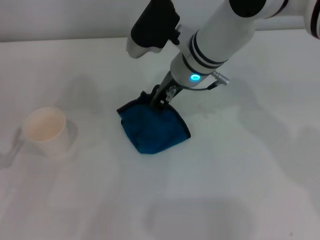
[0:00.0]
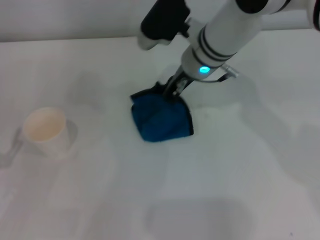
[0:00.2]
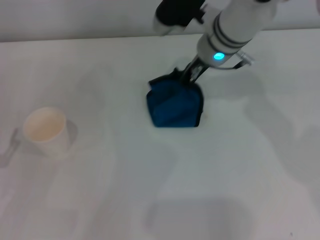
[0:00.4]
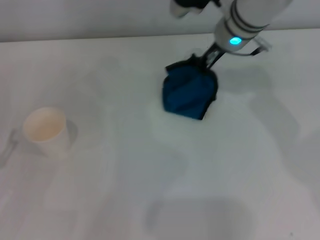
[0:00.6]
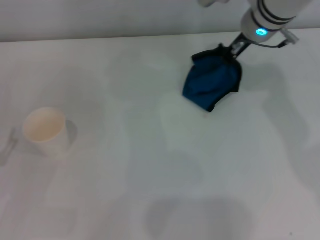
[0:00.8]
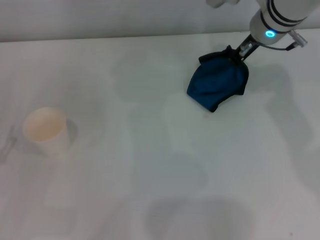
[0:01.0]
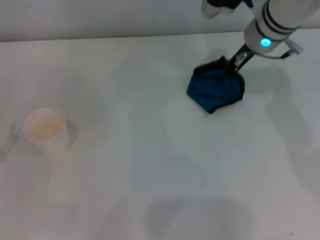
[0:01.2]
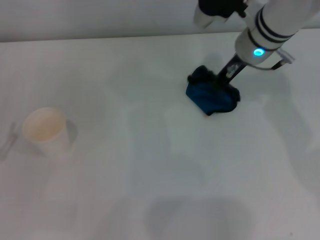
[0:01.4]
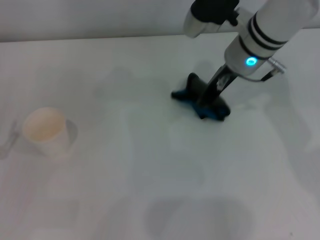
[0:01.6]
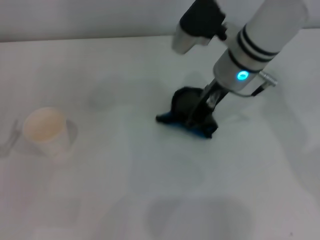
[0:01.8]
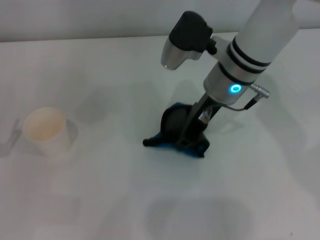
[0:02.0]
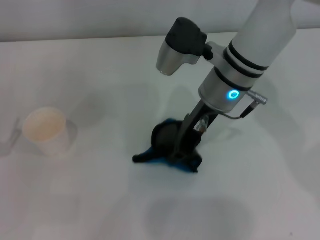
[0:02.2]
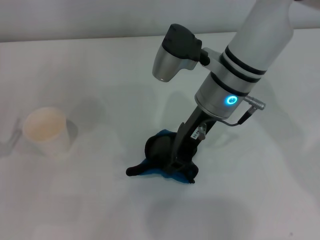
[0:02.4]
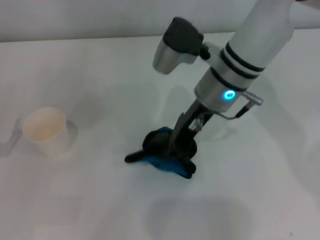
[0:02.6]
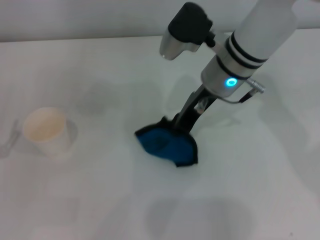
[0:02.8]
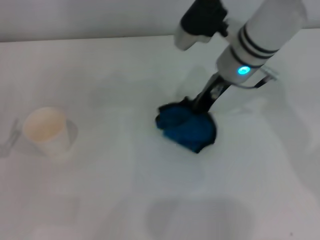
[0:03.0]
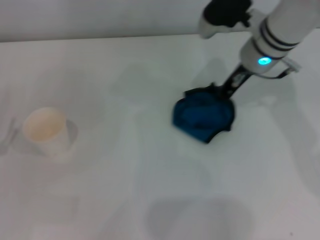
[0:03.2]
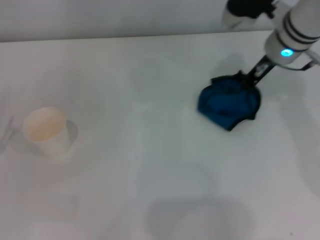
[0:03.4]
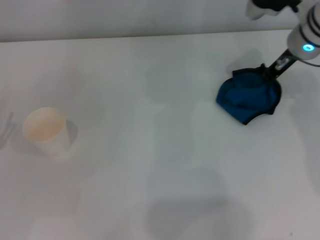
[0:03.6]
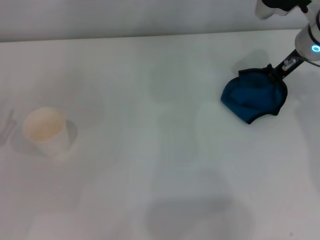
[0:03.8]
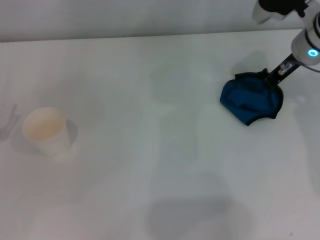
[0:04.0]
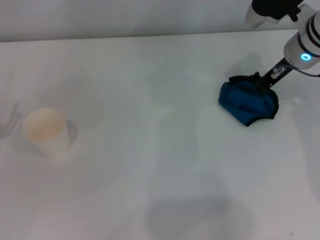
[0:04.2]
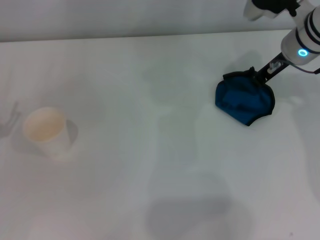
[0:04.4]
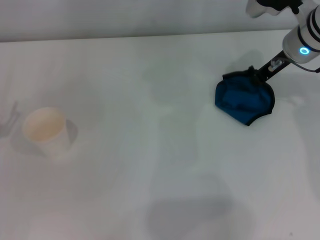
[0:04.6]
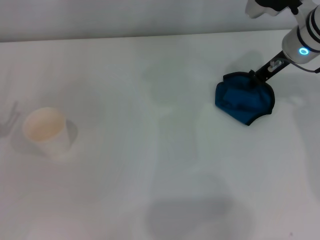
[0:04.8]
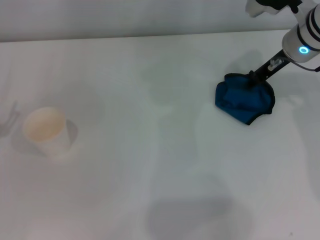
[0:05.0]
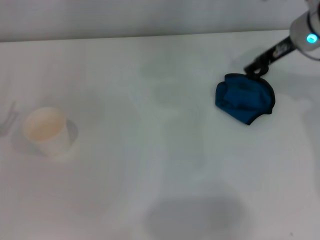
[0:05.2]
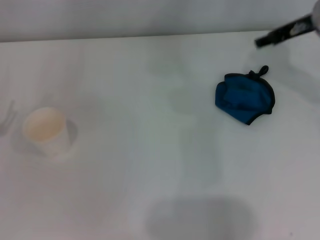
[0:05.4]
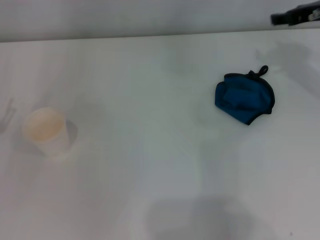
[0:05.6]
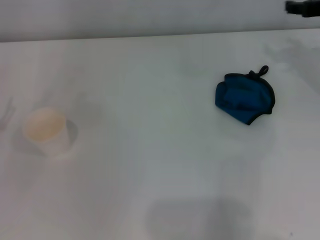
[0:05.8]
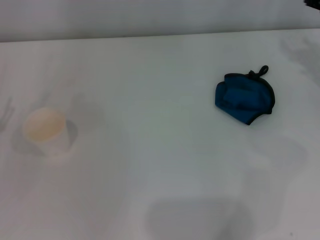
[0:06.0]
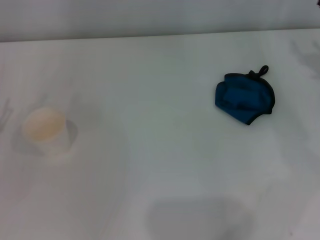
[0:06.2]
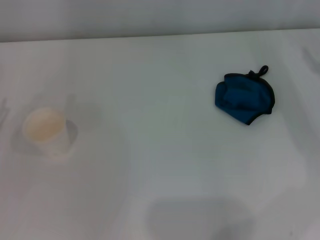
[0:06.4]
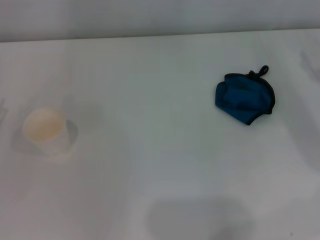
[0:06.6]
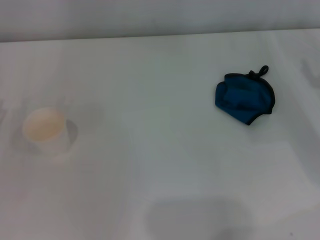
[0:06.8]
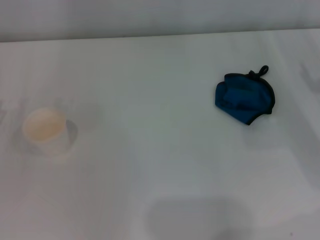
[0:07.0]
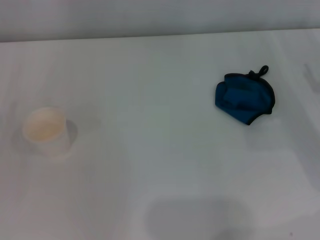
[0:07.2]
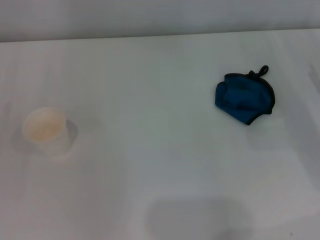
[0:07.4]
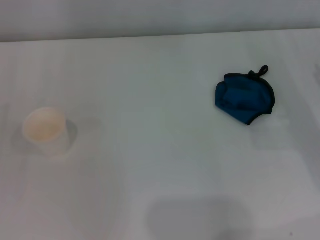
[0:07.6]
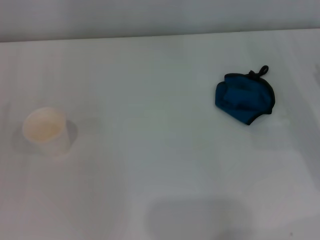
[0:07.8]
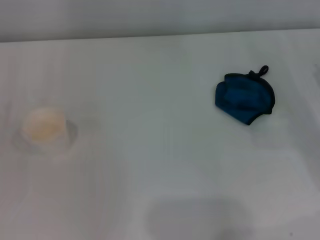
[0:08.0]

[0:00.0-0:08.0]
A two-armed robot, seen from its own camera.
Step, 0.0 to 3.2 s: Wipe the stains off the table with the right gripper.
Step, 3.4 to 5.0 s: Place the rag on the table with the right gripper.
0.0 to 1.6 s: The right gripper heads to the right, covering about 10 cm.
1.6 to 3.2 s: The right gripper travels to the left and back again, some 5 cm each way.
3.2 to 4.8 s: The right gripper moves to the right, some 5 cm.
4.8 to 6.4 s: The right gripper shifts about 20 cm to the right and backward, and opens.

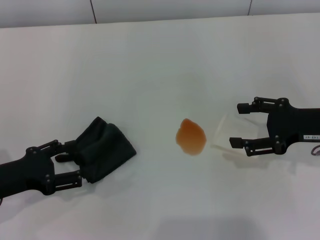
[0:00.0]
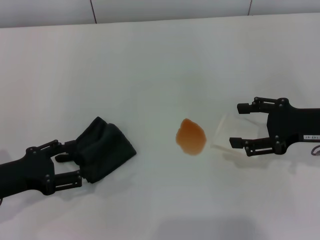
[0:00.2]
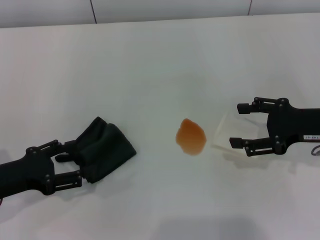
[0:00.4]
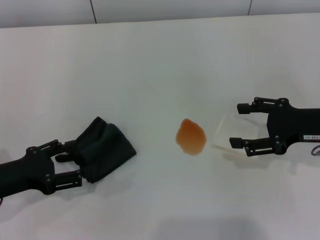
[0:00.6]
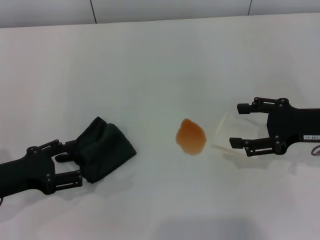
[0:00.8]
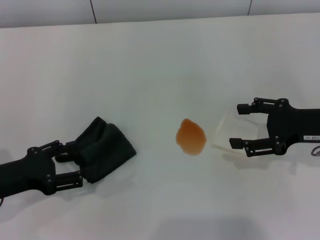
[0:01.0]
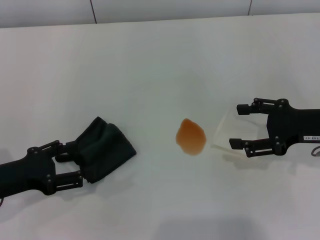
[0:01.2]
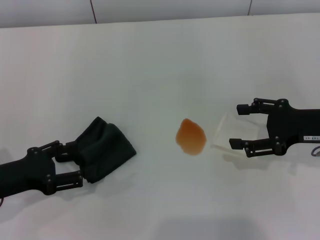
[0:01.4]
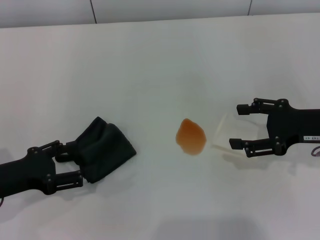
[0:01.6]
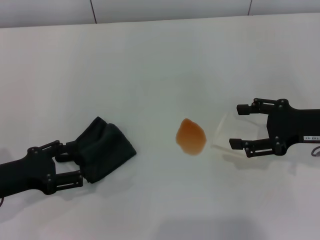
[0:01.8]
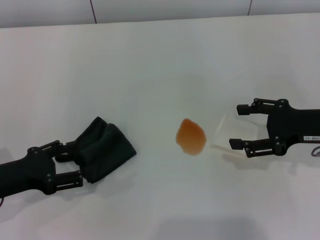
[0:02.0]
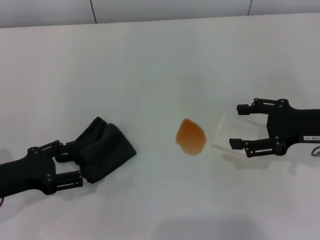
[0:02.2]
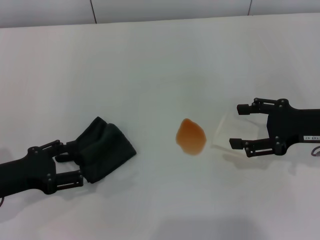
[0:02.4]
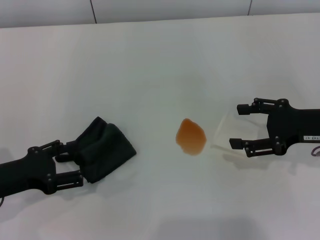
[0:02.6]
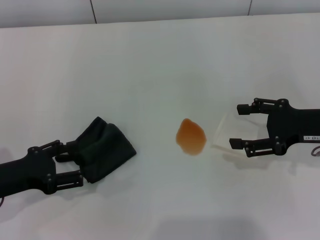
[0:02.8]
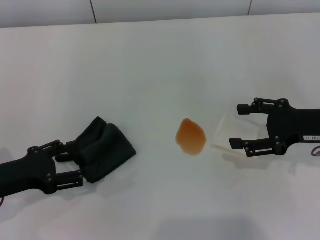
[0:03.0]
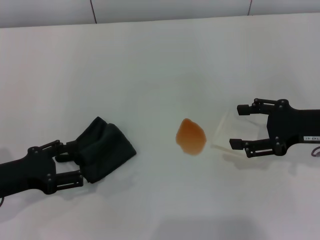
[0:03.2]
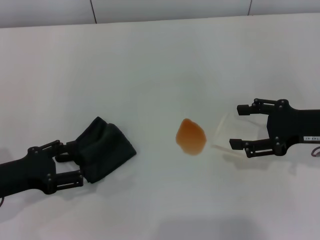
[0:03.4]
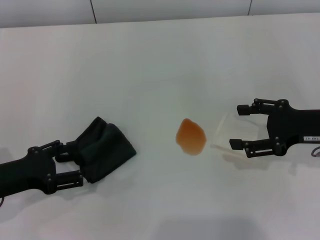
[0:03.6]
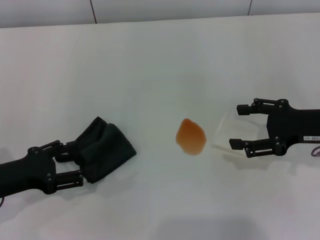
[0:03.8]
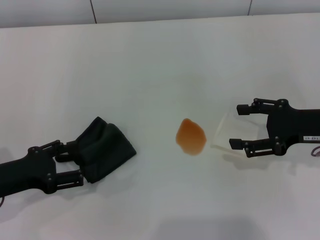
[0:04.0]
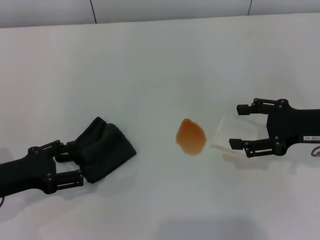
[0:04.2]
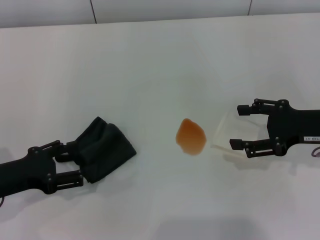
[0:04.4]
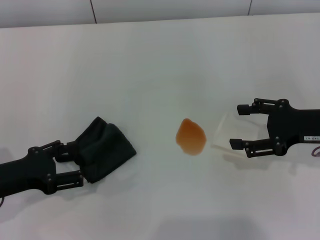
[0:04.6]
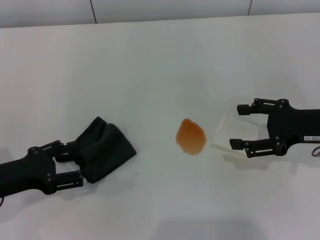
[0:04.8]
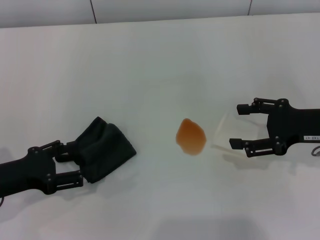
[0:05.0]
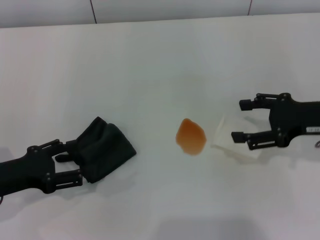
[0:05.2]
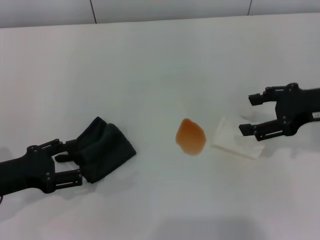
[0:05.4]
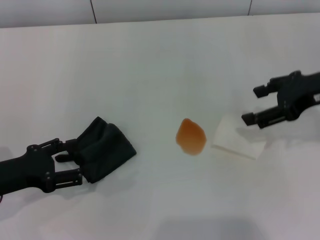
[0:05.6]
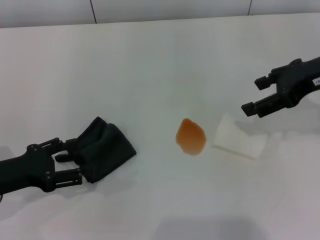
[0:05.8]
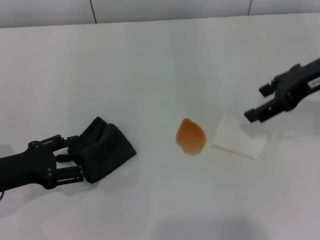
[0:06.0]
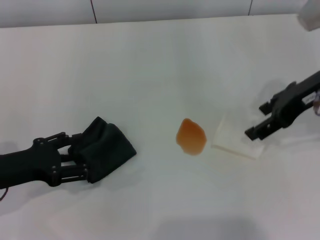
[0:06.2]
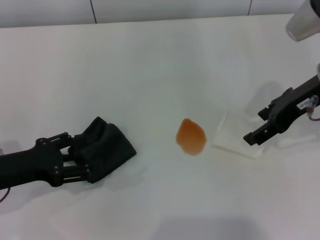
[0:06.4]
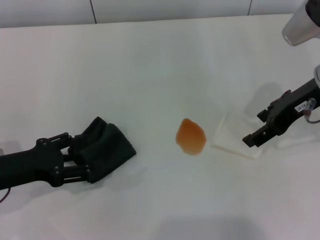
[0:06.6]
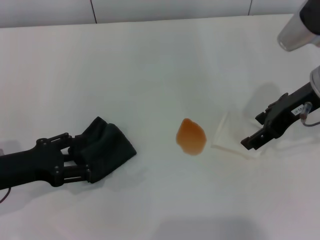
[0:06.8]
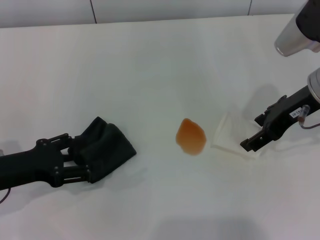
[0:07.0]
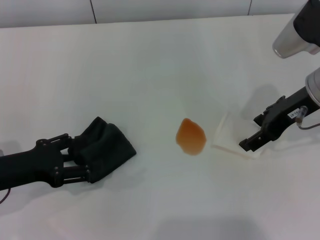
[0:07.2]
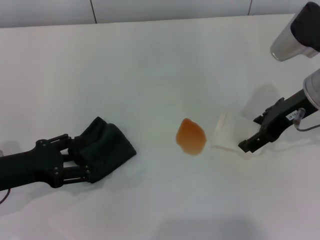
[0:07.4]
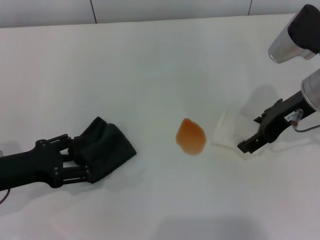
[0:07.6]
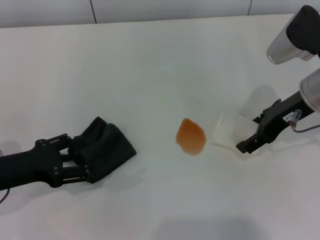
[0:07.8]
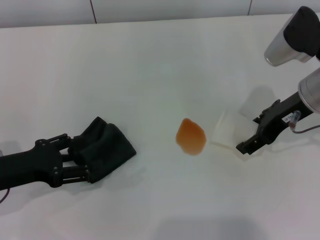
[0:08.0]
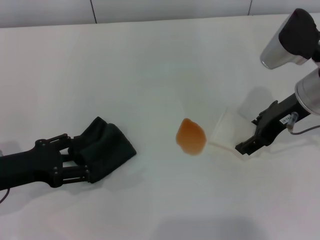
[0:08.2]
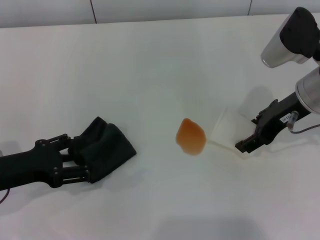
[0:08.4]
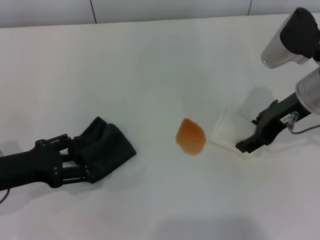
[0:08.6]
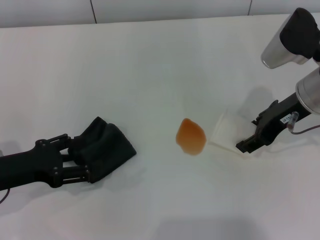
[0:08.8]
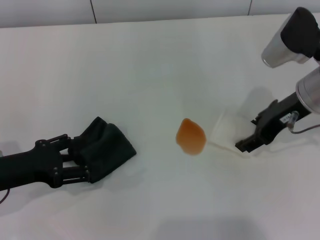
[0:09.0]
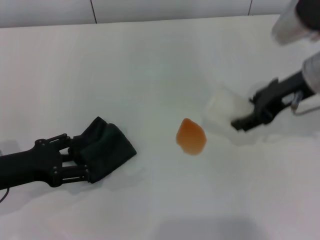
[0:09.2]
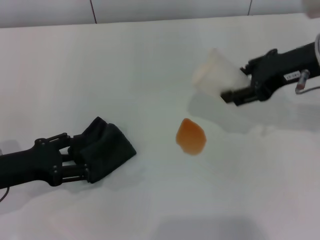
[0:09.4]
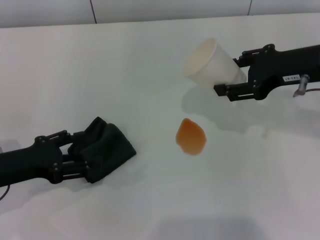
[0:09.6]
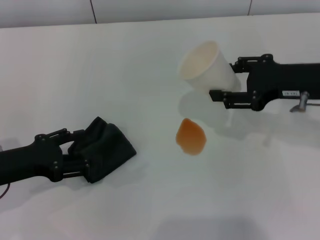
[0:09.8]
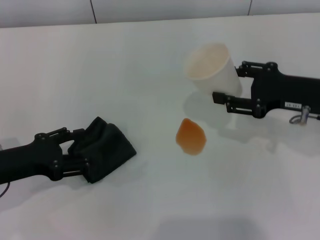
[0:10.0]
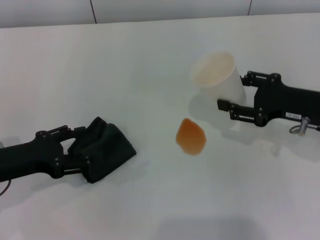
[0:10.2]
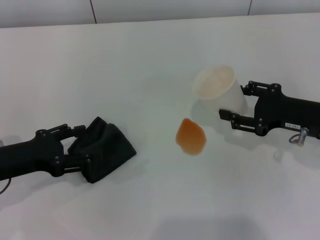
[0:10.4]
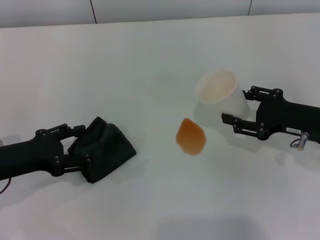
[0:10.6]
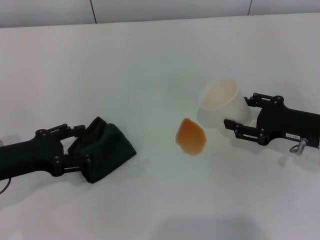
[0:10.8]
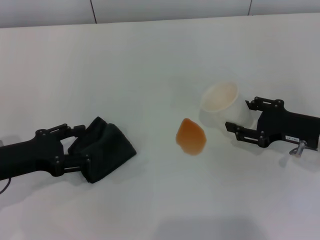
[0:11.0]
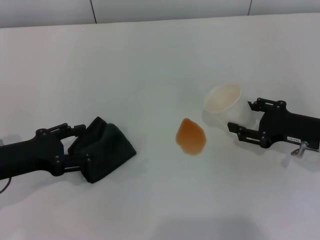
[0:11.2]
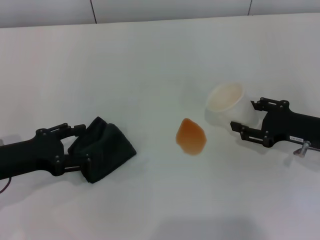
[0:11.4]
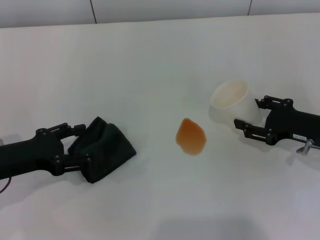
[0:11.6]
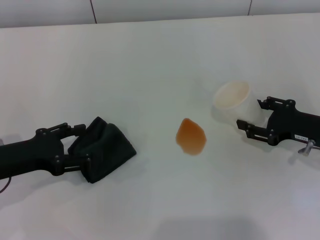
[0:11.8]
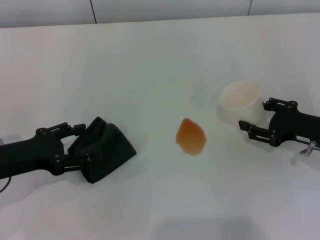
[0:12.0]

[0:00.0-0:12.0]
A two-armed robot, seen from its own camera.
Step, 0.0 to 8.6 s: Grasp the paper cup with the right gripper.
0.0 to 4.4 s: Both grippers stay put.
4.4 to 6.0 s: The right gripper goes some 10 cm upward and forward.
6.0 to 7.6 s: The right gripper shifts some 5 cm downward.
7.6 to 9.0 s: The right gripper closes.
9.0 to 10.4 s: The right gripper travels downward and to the right by roughly 10 cm.
10.4 to 12.0 s: The grippers make only small movements.

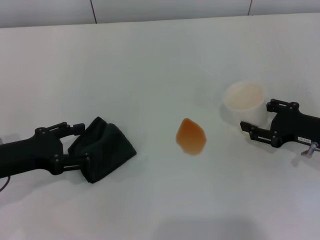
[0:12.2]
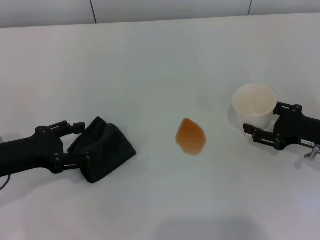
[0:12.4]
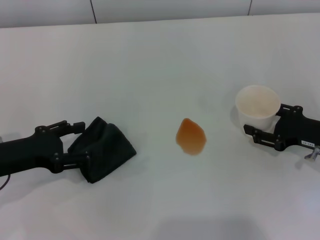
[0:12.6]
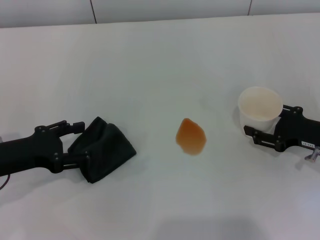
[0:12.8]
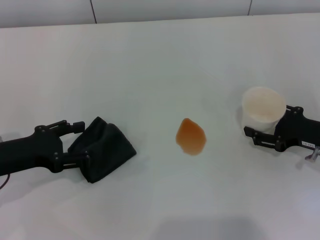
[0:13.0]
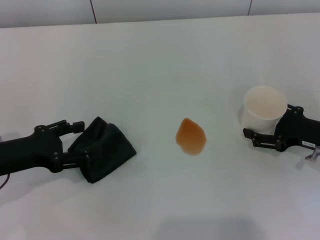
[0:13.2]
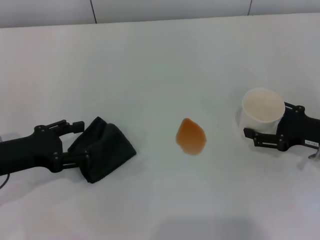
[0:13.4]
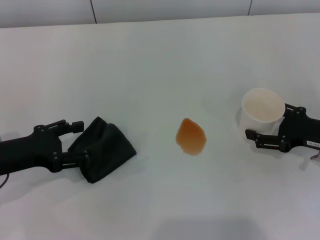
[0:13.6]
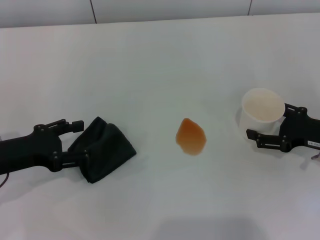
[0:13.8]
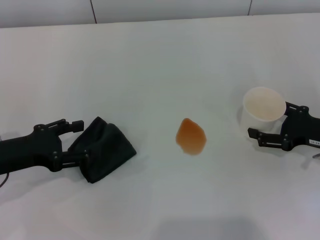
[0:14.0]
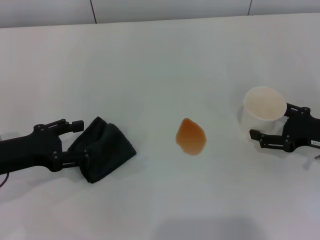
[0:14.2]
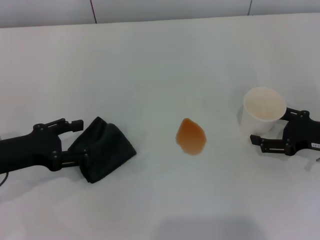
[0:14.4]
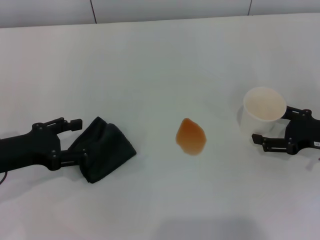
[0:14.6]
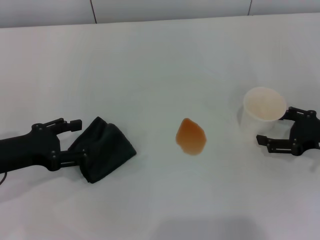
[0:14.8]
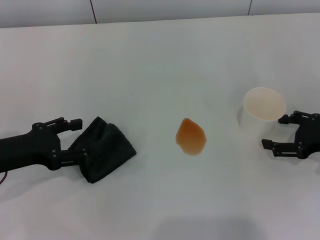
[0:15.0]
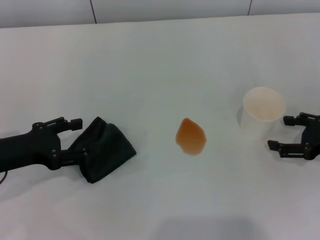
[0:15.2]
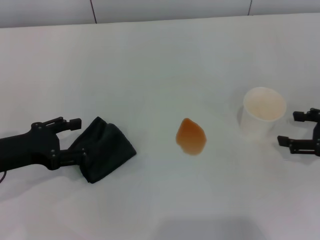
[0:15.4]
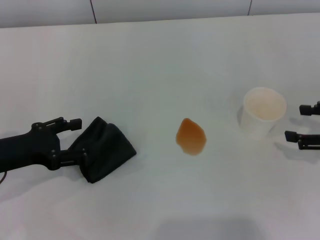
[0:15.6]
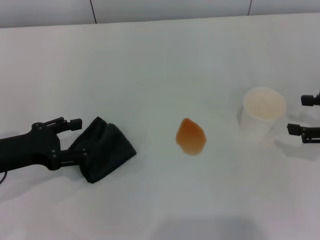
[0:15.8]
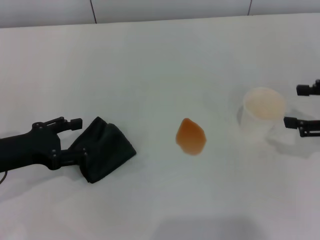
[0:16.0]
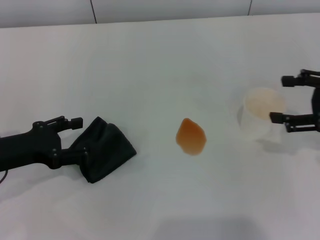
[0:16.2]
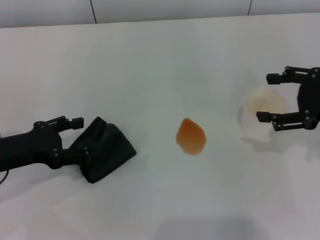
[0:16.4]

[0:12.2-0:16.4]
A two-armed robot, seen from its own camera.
Step, 12.2 to 14.8 s: Stand the paper cup upright with the right gripper.
12.2 to 13.6 s: The right gripper opens.
13.6 to 15.0 s: The grippers make only small movements.
15.0 to 16.4 s: The right gripper goes some 10 cm upward.
